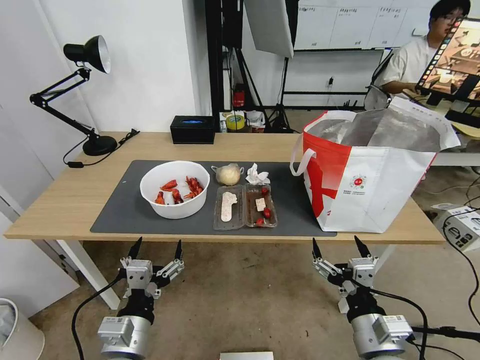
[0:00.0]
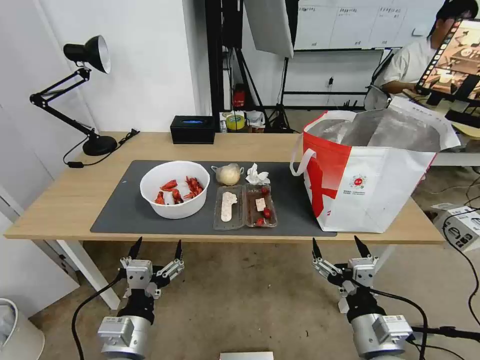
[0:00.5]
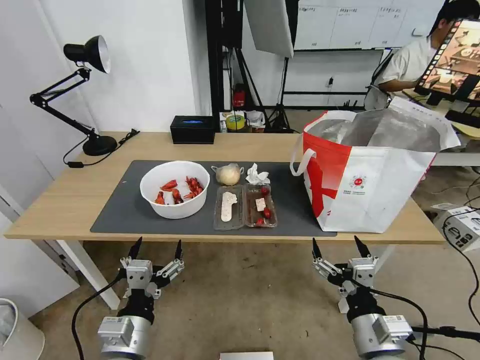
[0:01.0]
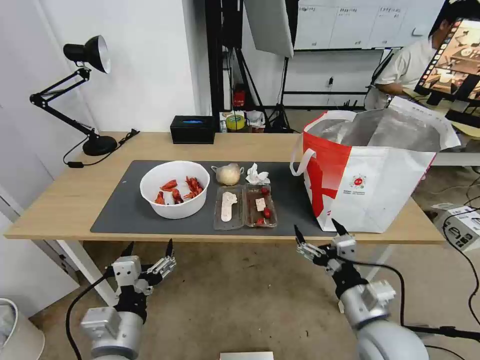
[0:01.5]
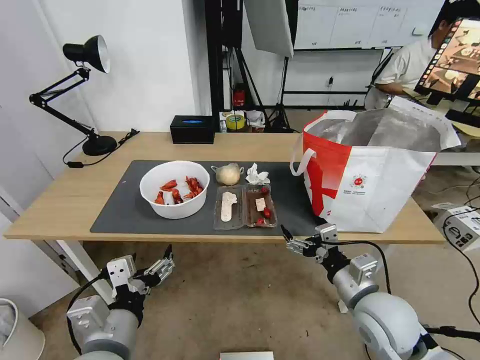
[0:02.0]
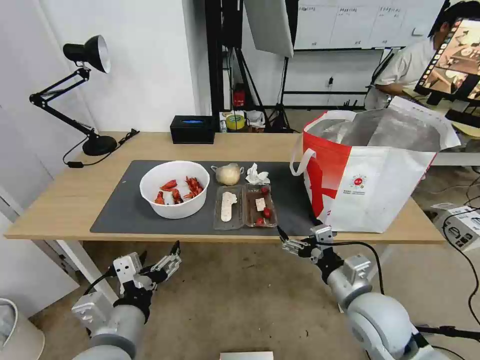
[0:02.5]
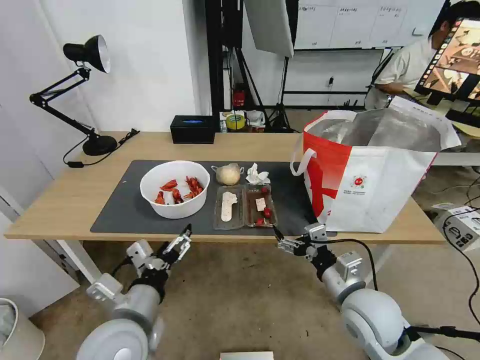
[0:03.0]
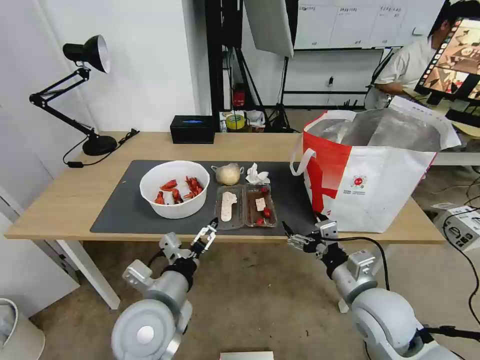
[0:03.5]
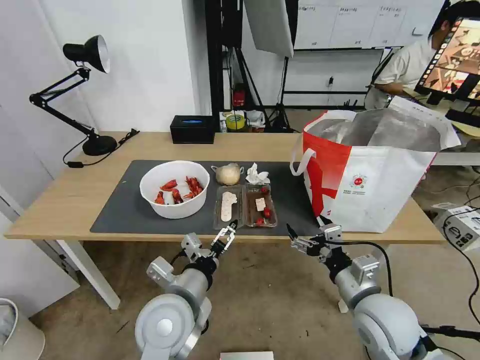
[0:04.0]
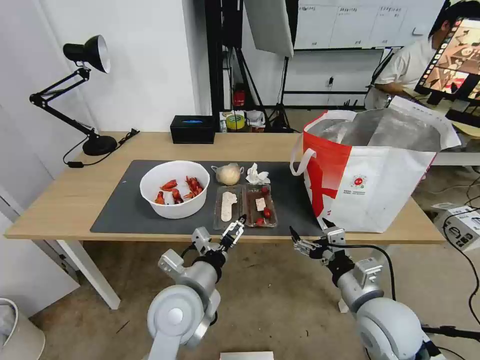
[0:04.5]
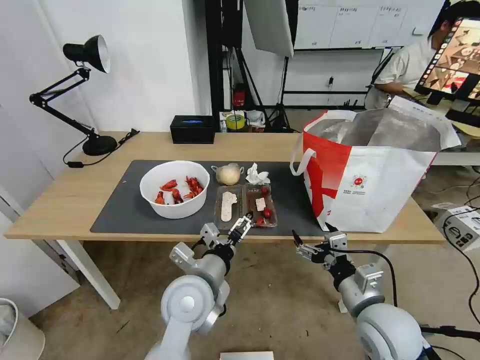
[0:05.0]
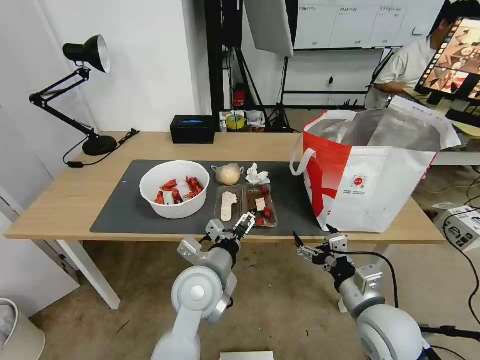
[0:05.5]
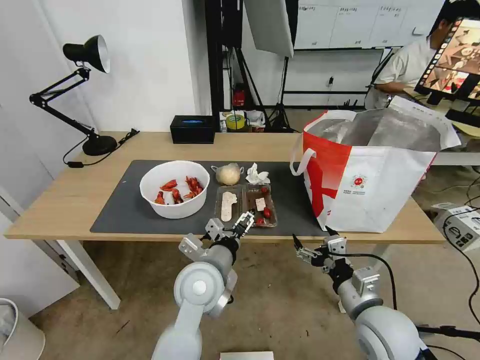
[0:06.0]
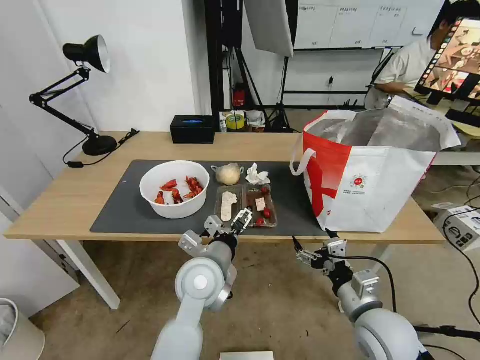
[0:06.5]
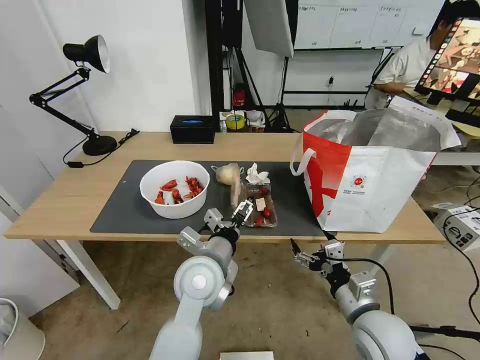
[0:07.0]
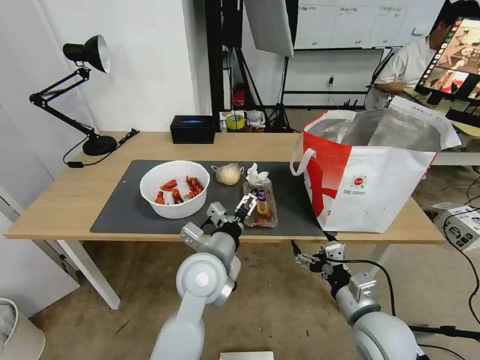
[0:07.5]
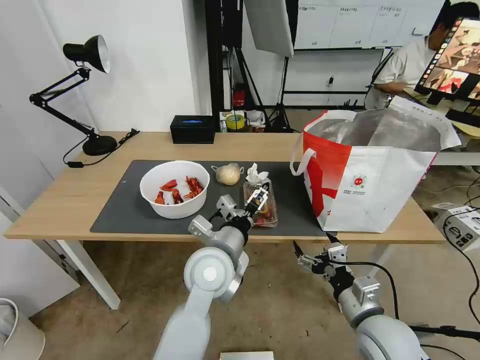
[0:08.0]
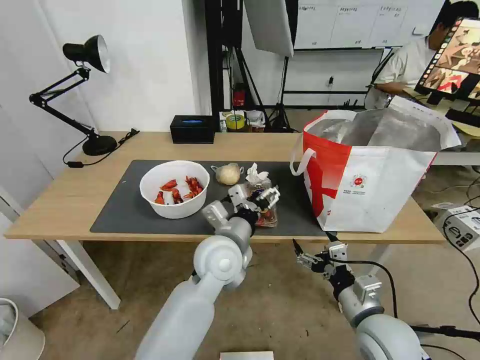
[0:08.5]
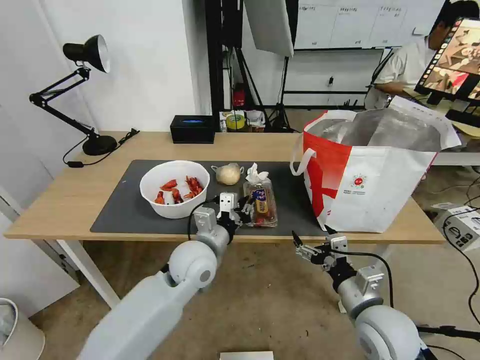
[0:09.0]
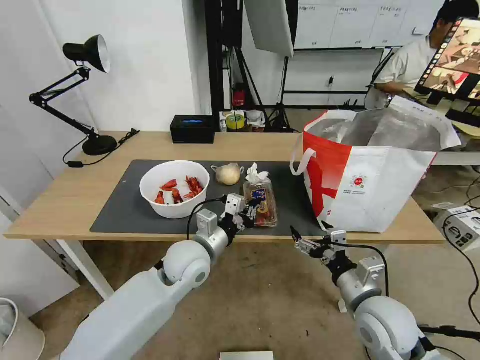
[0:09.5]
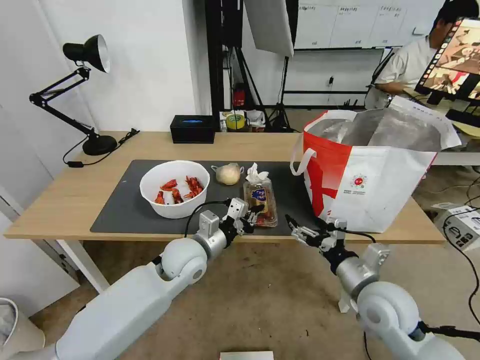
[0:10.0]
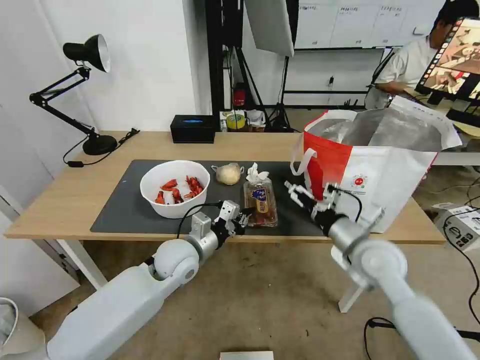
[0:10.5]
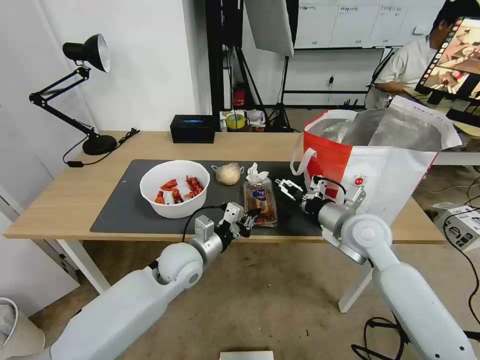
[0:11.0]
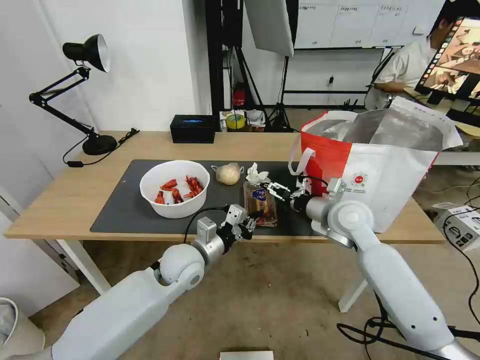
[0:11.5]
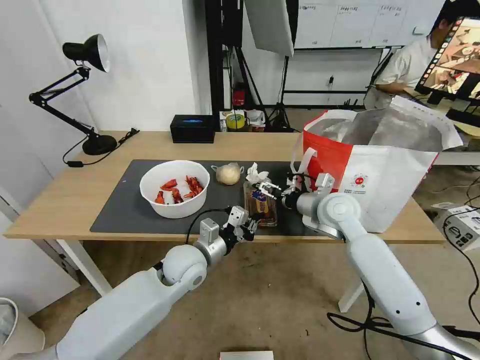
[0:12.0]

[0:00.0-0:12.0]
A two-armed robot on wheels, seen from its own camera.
Task of the whole recording: Pick up the trash from the table and place it into the takeout bag.
0:02.0 to 0:04.0: The left gripper shifts roughly 10 cm forward and to the right.
0:04.0 to 0:06.0: The left gripper heads forward, covering some 5 cm.
0:06.0 to 0:08.0: The grippers make only small movements.
0:08.0 to 0:10.0: The left gripper is displaced to the left, forward and downward by roughly 10 cm, and closes its fingers; the right gripper shifts some 5 cm forward.
0:10.0 to 0:12.0: The right gripper heads forward, covering approximately 20 cm.

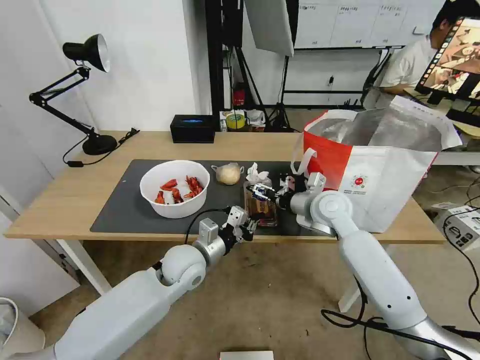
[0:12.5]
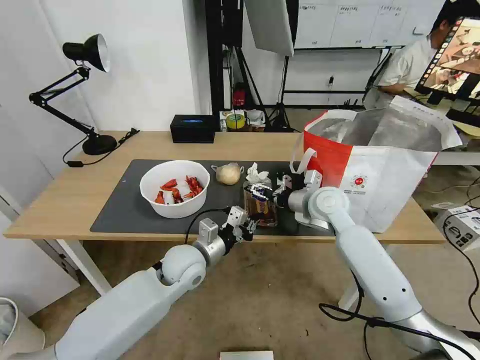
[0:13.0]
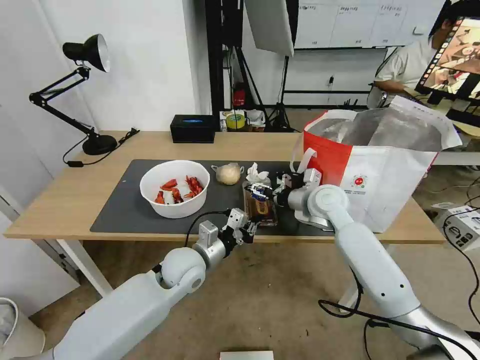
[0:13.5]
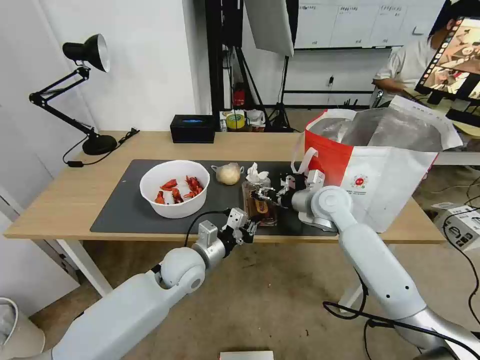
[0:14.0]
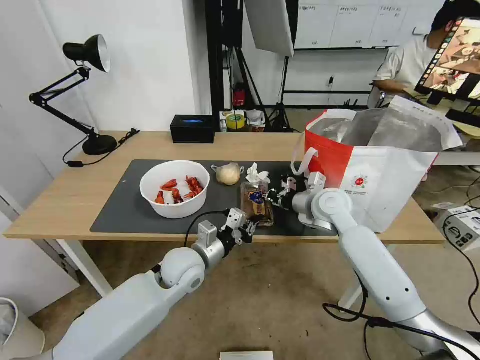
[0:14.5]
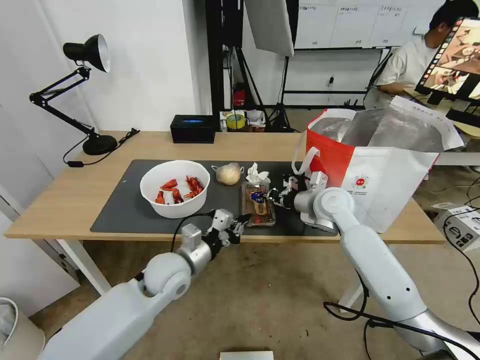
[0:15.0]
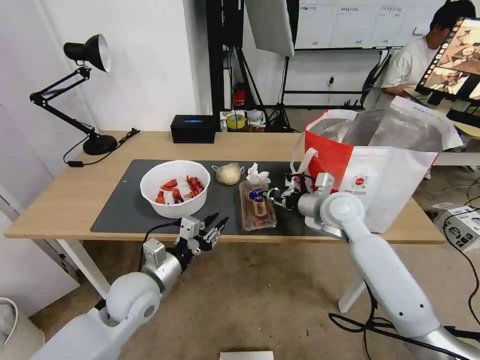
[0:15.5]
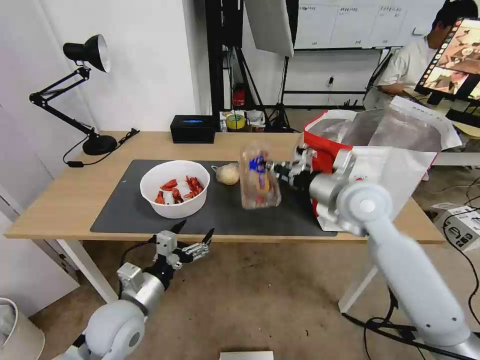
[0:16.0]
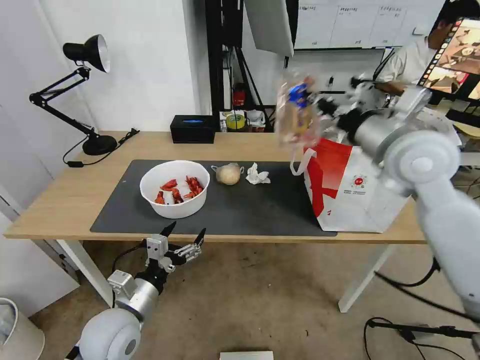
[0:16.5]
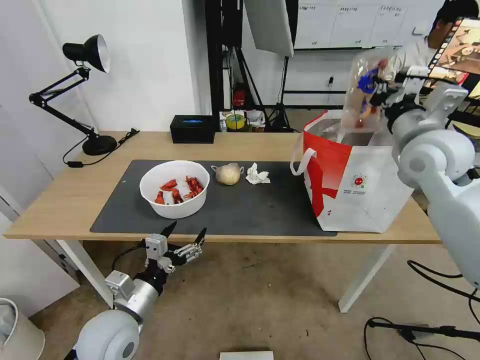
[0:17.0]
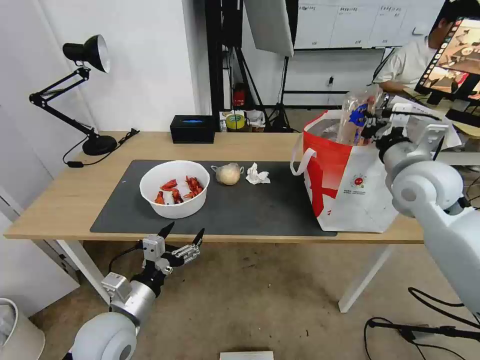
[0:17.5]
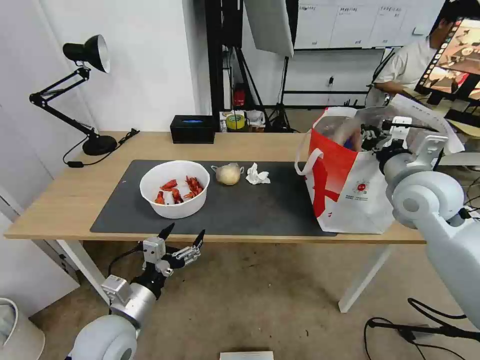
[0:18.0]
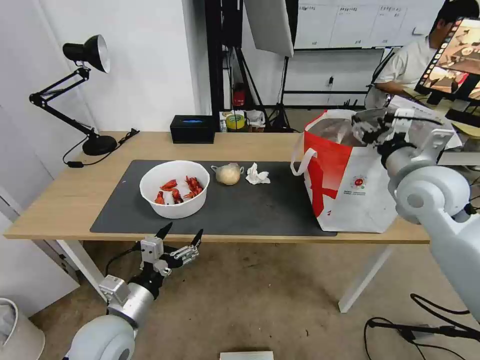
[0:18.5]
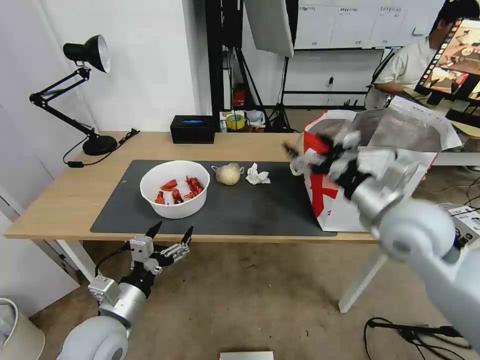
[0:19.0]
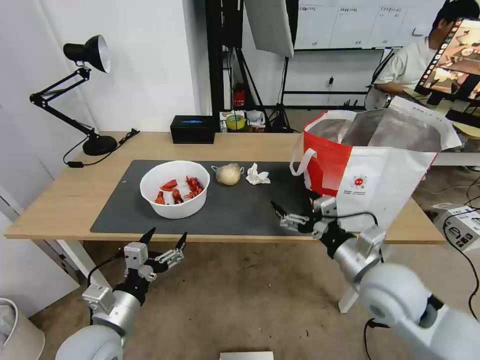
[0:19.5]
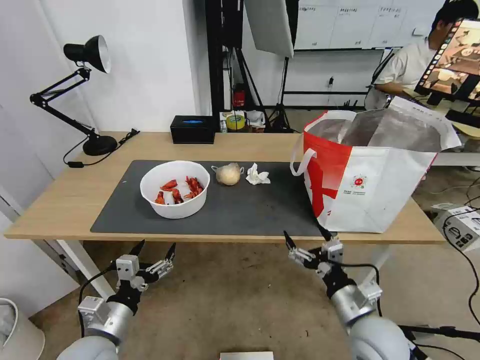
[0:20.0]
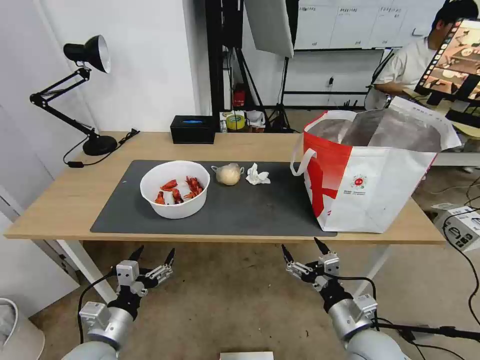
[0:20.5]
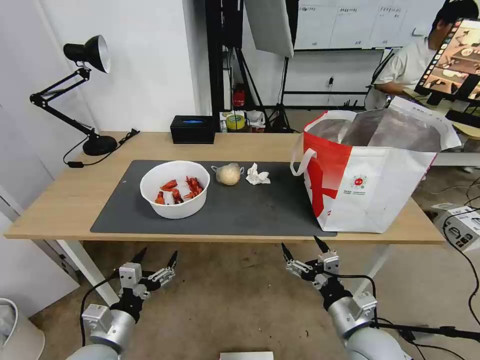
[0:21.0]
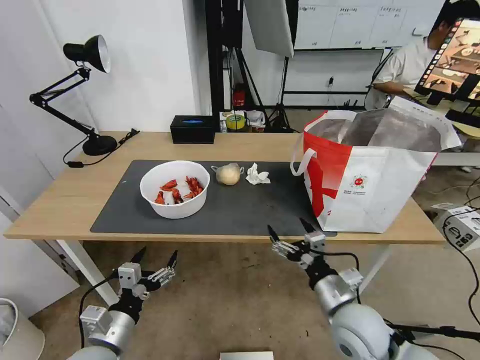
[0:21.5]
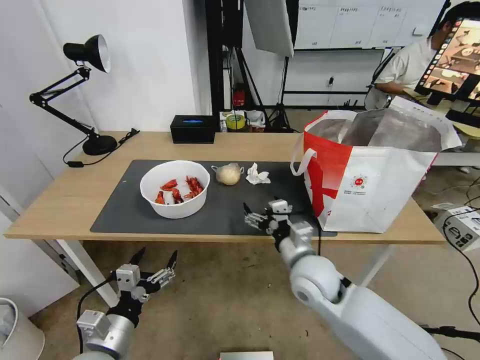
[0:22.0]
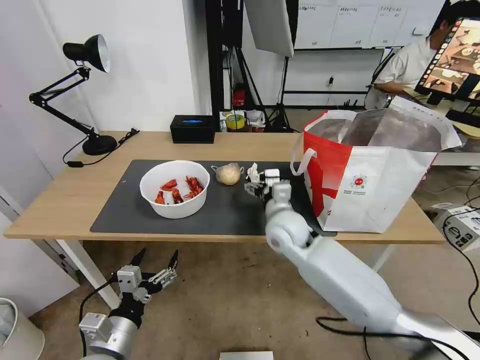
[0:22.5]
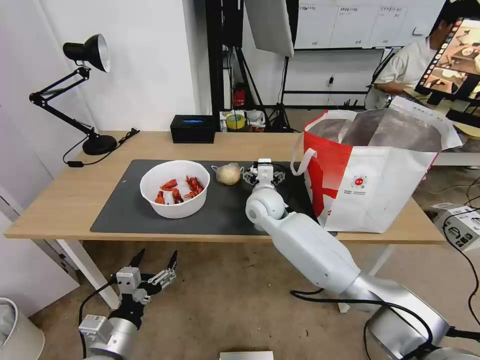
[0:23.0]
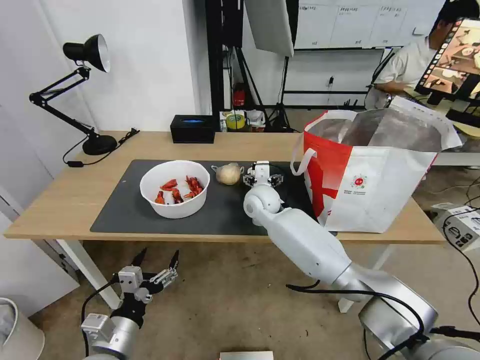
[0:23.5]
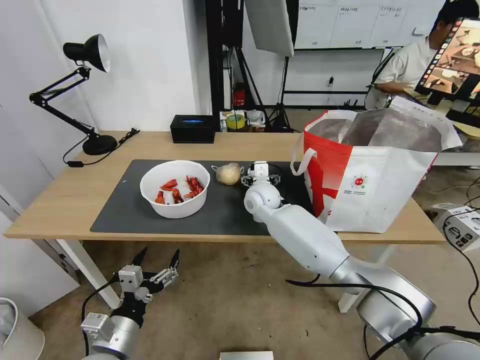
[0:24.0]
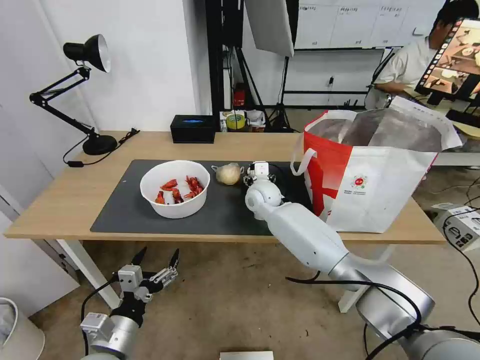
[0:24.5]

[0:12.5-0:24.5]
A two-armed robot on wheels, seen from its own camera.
Task of the whole recording: Pick up the trash from the table and place it into the takeout bag.
0:12.5 to 0:14.5: The right gripper closes its fingers.
0:14.5 to 0:16.5: The left gripper travels backward and to the left by roughly 15 cm, and opens; the right gripper heads upward, covering some 20 cm.
0:16.5 to 0:18.5: The right gripper is displaced downward and to the right by roughly 10 cm, and opens.
0:18.5 to 0:20.5: The left gripper moves downward, some 5 cm, while the right gripper heads downward and backward, covering about 30 cm.
0:20.5 to 0:22.5: The right gripper shifts approximately 30 cm forward, to the left and upward.
0:22.5 to 0:24.5: The right gripper moves forward, about 10 cm.

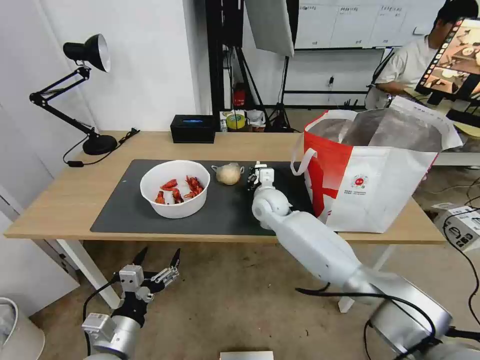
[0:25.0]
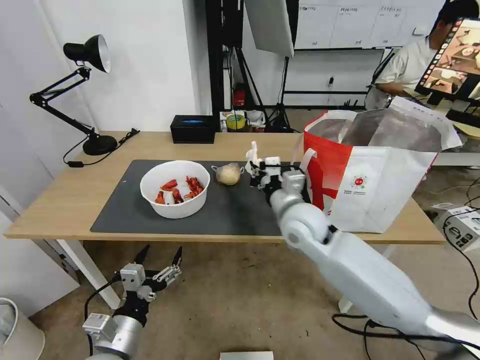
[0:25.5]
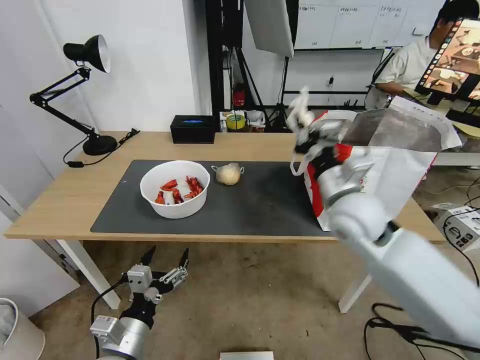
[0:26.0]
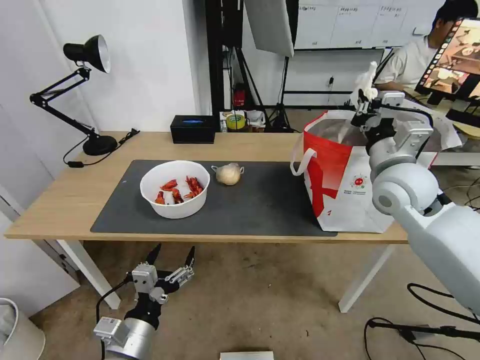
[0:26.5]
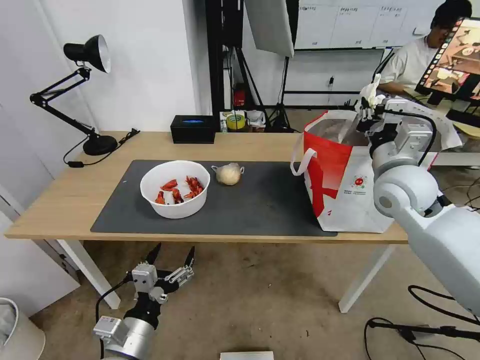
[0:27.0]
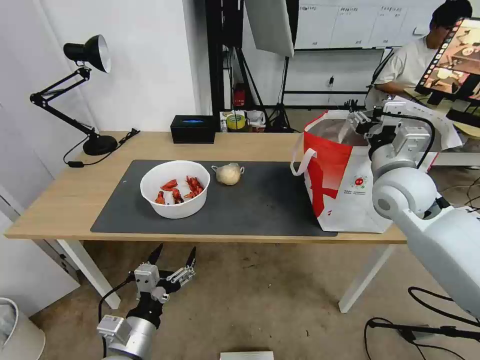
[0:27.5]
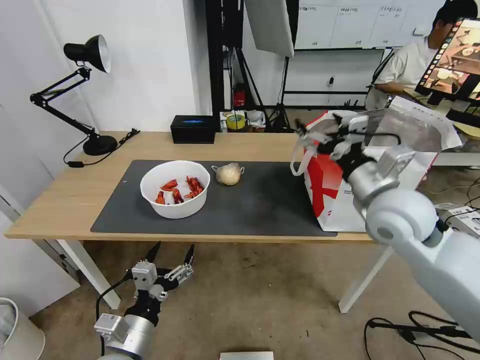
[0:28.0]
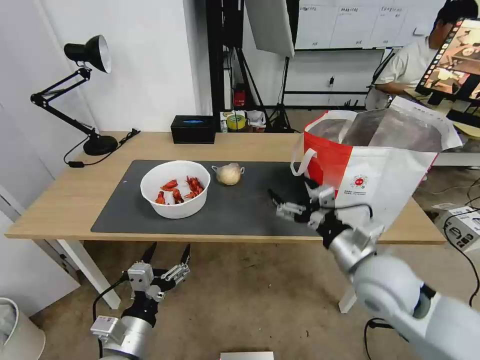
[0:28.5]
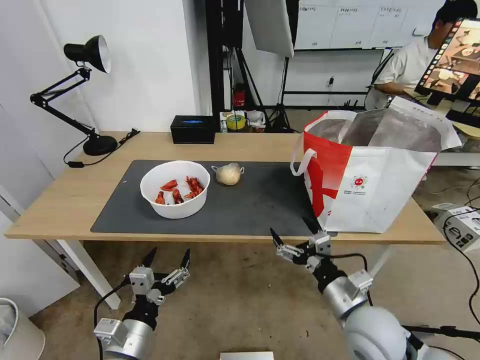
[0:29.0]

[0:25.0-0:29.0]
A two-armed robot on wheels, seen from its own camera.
Task of the whole recording: Pick up the trash from the table and place it into the takeout bag.
0:25.0 to 0:27.0: The right gripper moves to the right, upward and backward, some 30 cm.
0:27.0 to 0:29.0: The right gripper heads backward and downward, covering about 25 cm, and opens.
